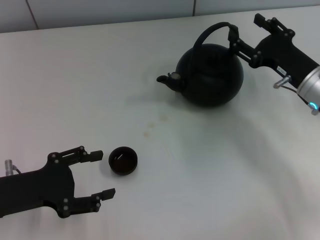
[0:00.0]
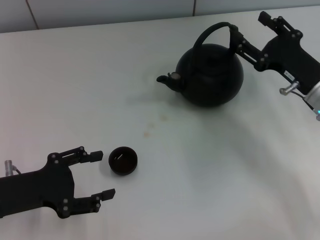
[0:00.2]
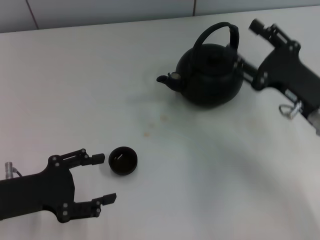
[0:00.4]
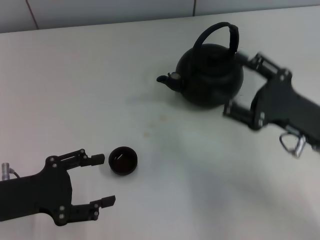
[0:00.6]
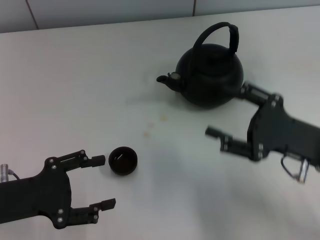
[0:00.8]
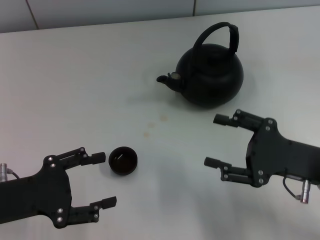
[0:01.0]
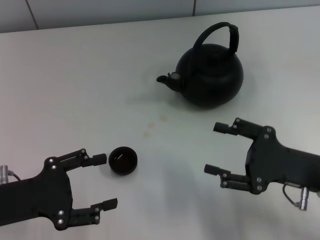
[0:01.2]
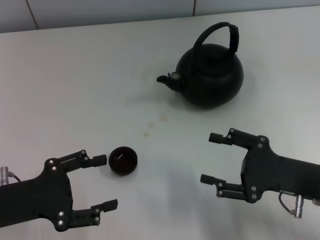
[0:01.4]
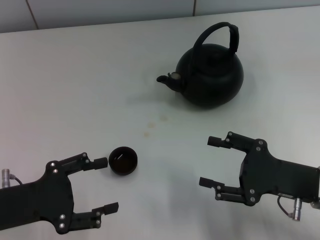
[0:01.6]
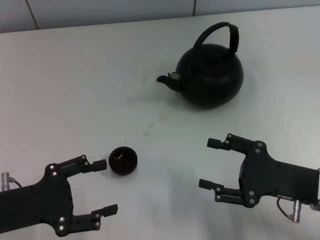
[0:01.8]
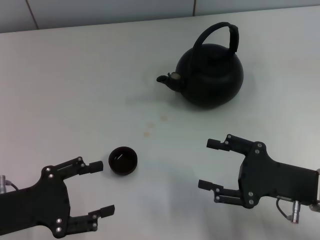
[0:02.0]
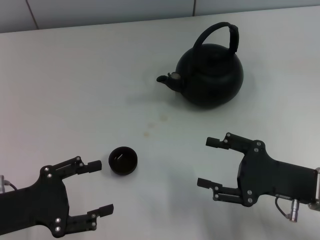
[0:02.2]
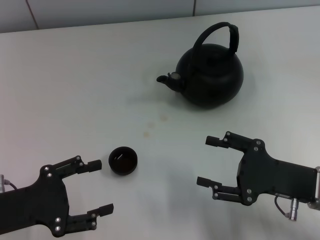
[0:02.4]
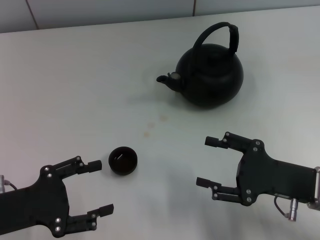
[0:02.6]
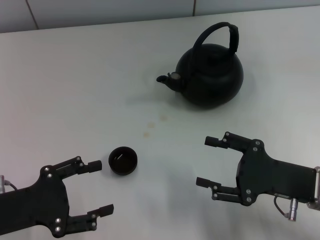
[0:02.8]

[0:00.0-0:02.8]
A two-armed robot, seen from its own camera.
Task of the whole recording: Grasp the handle of the teapot with one hand and pour tea into the teacup.
0:00.0 to 0:01.4: The right gripper is displaced backward by about 10 cm.
0:01.4 to 0:02.8: Neither gripper changes place.
